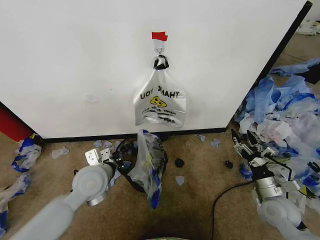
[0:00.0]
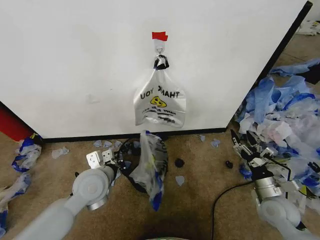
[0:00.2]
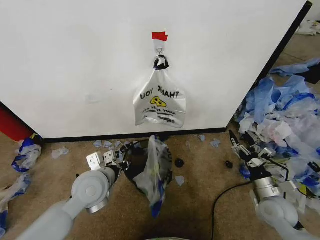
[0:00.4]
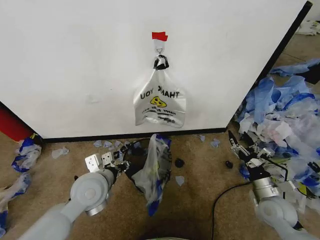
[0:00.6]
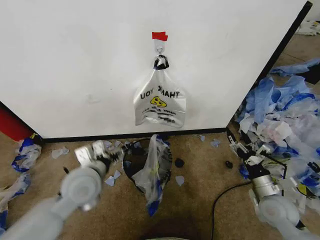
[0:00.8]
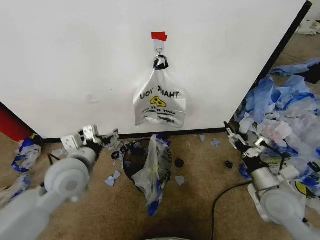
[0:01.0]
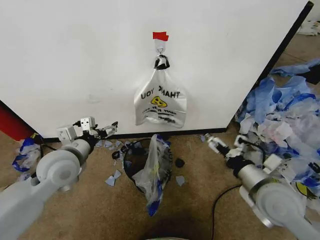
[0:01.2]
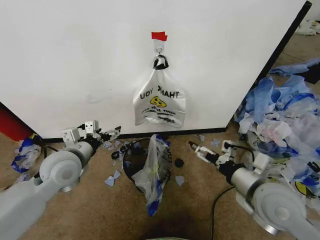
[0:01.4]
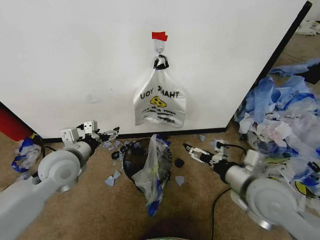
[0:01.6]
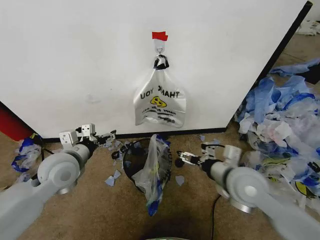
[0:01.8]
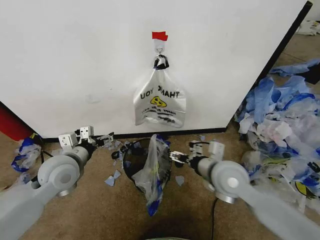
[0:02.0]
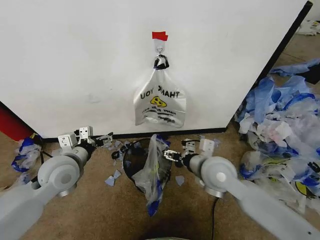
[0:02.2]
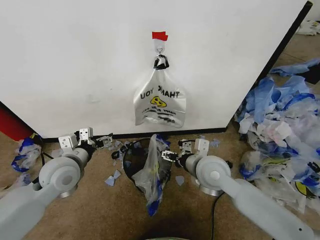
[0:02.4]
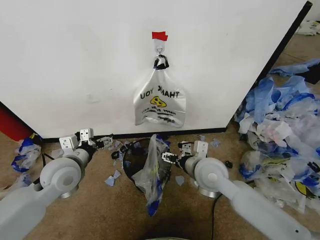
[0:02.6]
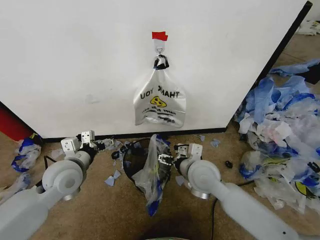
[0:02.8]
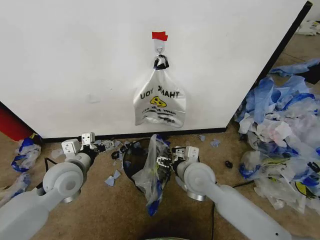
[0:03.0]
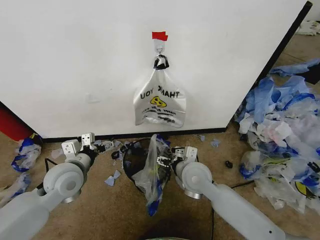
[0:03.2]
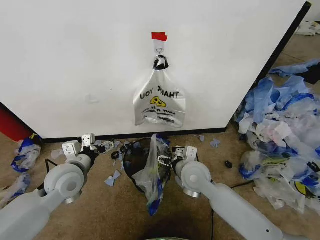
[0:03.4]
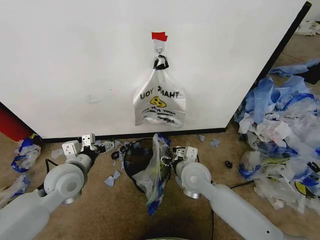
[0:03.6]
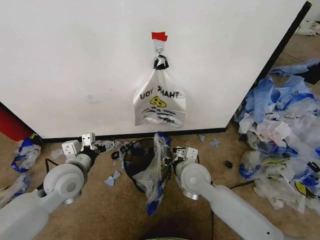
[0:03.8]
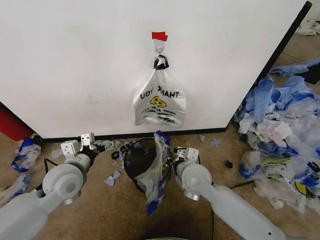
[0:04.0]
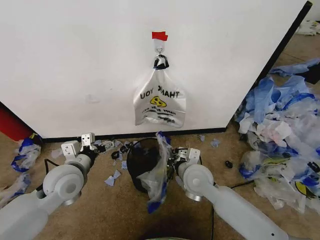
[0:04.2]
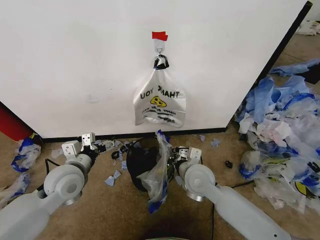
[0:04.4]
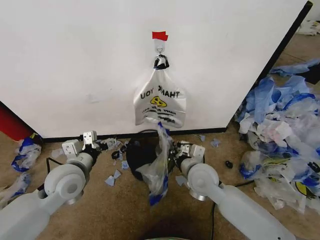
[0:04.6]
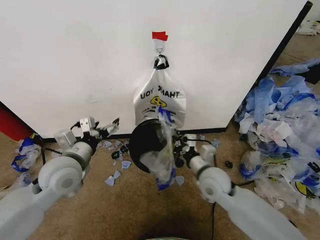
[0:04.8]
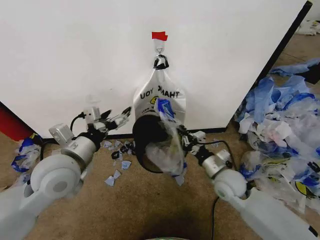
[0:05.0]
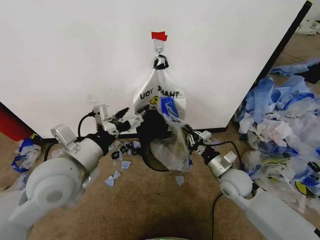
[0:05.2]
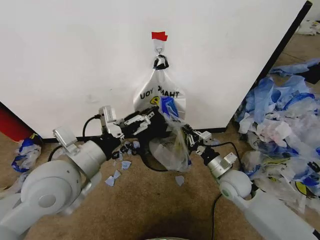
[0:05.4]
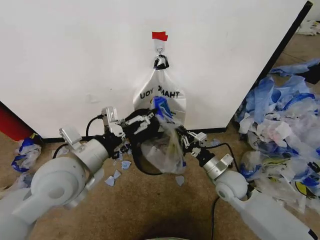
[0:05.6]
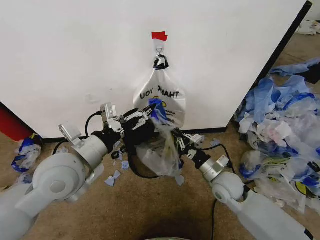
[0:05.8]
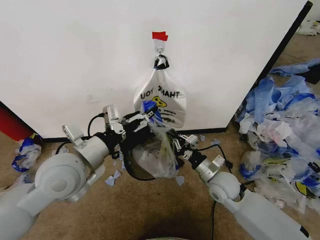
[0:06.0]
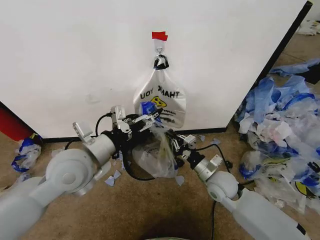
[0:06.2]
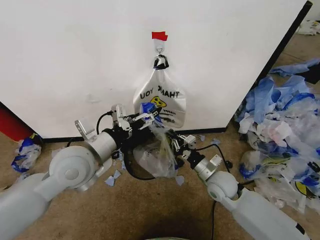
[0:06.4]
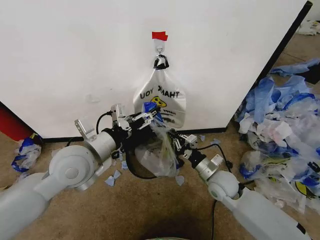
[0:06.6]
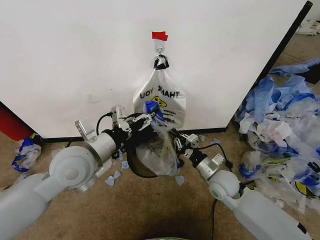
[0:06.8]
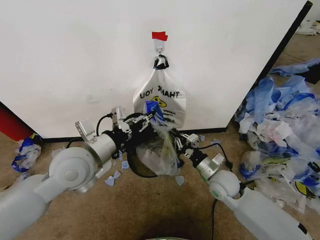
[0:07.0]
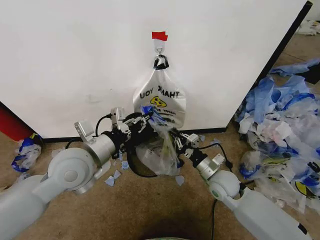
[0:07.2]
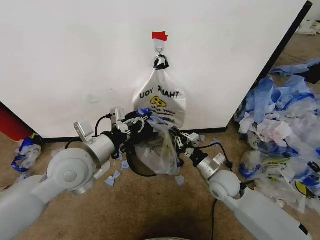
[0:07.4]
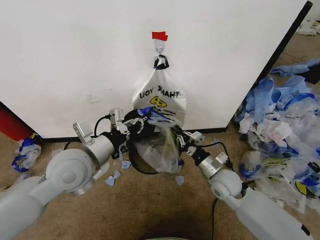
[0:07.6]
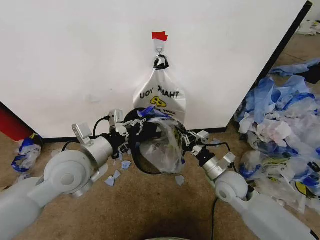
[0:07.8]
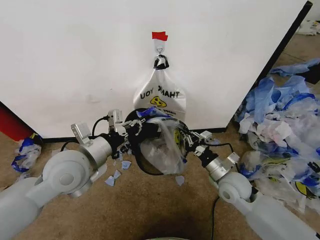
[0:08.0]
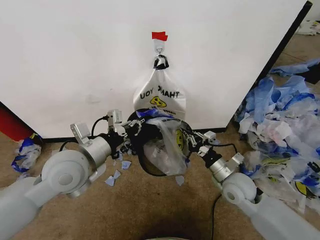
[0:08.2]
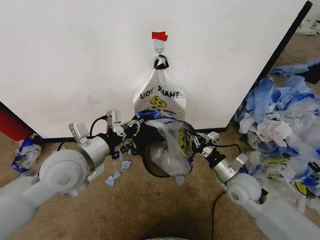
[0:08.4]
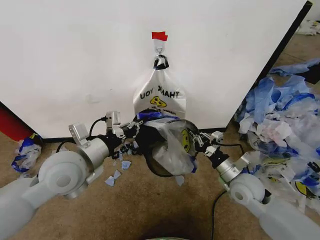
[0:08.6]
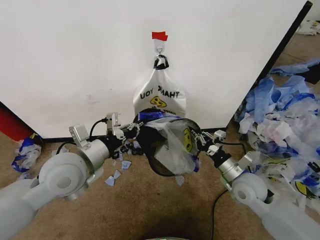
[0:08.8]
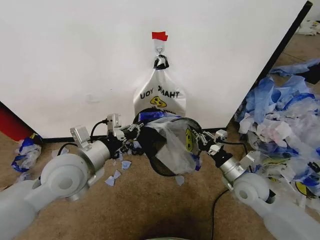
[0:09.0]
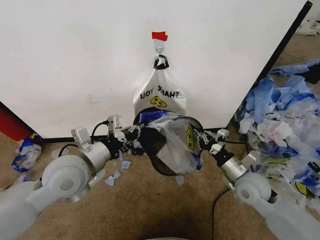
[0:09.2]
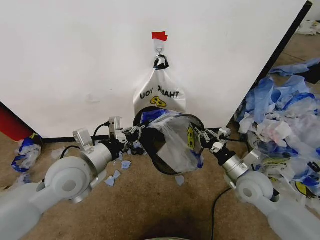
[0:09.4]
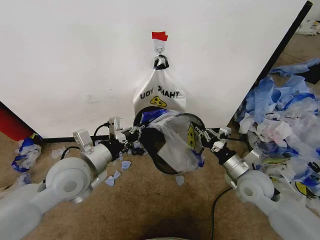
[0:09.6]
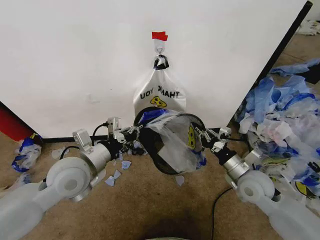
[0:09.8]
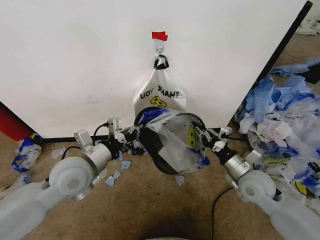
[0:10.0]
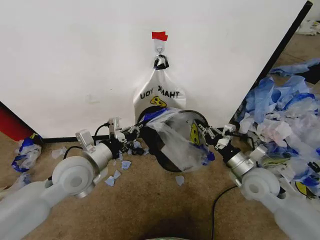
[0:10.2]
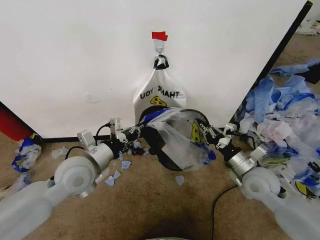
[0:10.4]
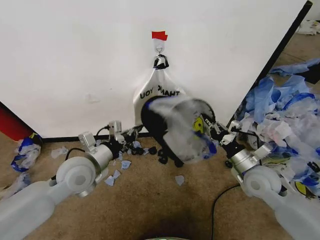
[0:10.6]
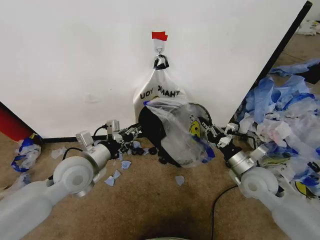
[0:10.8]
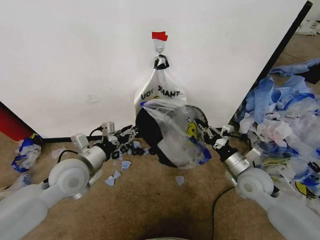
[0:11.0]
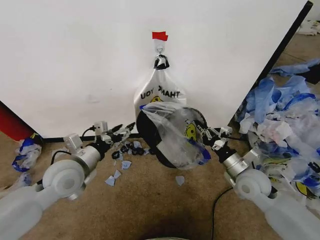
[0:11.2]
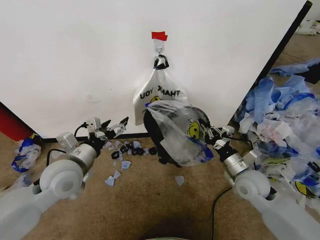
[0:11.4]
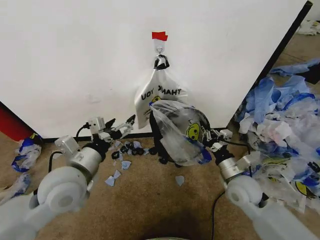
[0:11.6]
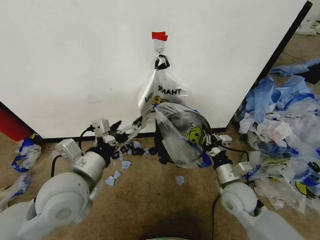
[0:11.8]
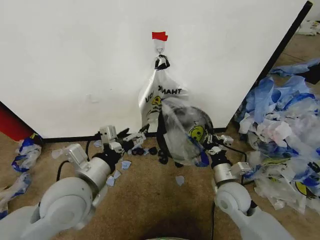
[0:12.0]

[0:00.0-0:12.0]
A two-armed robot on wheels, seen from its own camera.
Task of the whole recording: Pick up the garbage bag from the wall and place it over the trash bin.
0:00.0 to 0:01.6: The left gripper heads to the left and upward, covering approximately 10 cm, and opens its fingers. The right gripper goes about 20 cm upward and to the left.
0:01.6 to 0:03.0: The right gripper moves to the left, forward and downward, roughly 15 cm.
0:03.0 to 0:04.4: The right gripper closes its fingers.
0:04.4 to 0:06.0: The right gripper moves to the right, roughly 10 cm. The left gripper shifts about 10 cm upward and to the right.
0:06.0 to 0:07.6: The left gripper closes.
0:07.6 to 0:09.0: The right gripper shifts approximately 5 cm to the right.
0:09.0 to 0:10.4: The left gripper heads downward, covering approximately 5 cm.
0:10.4 to 0:12.0: The right gripper moves to the left and downward, some 10 cm. The left gripper heads backward, covering about 10 cm, and opens its fingers.

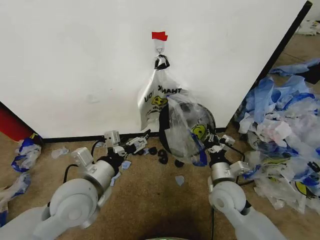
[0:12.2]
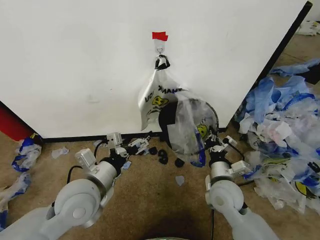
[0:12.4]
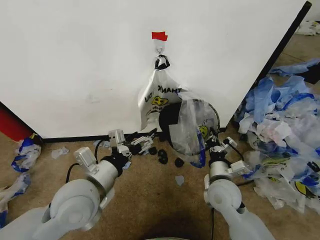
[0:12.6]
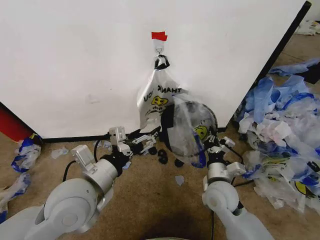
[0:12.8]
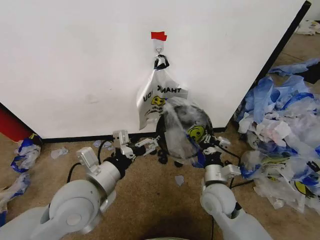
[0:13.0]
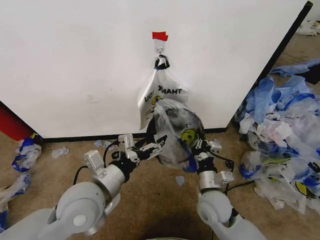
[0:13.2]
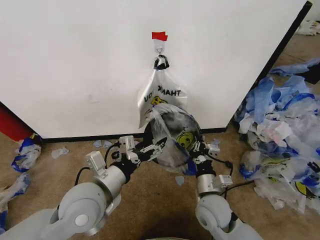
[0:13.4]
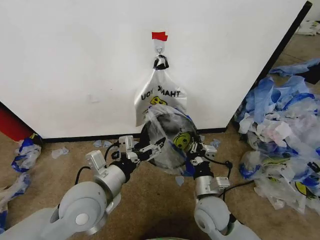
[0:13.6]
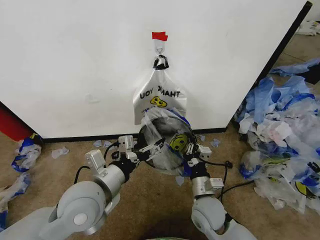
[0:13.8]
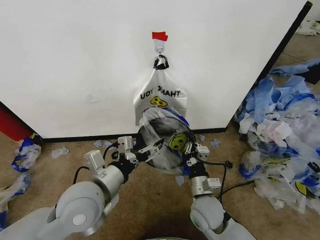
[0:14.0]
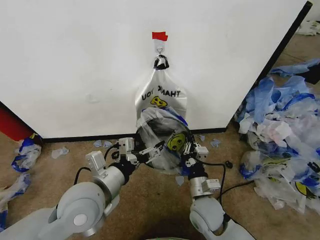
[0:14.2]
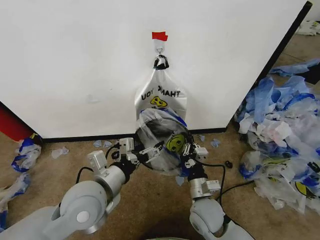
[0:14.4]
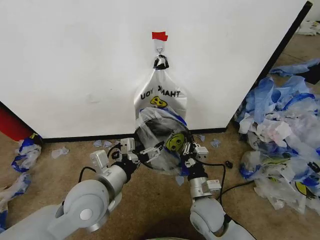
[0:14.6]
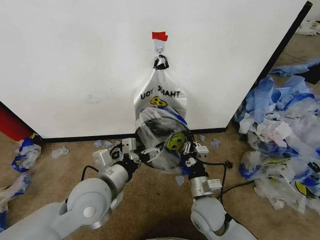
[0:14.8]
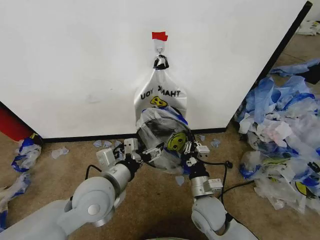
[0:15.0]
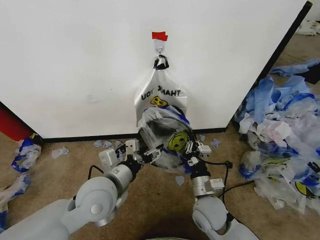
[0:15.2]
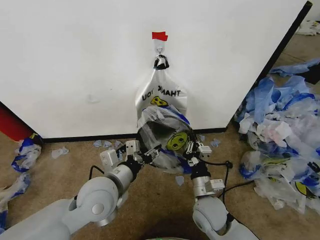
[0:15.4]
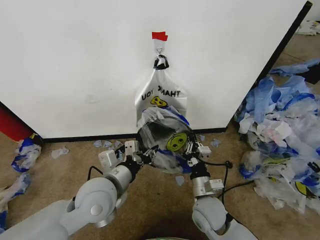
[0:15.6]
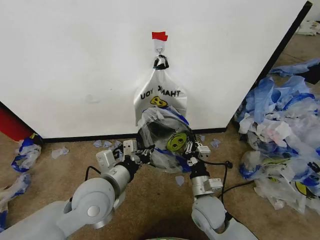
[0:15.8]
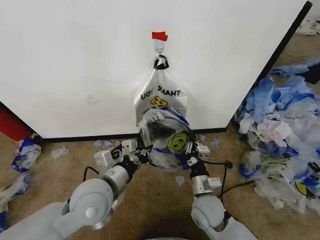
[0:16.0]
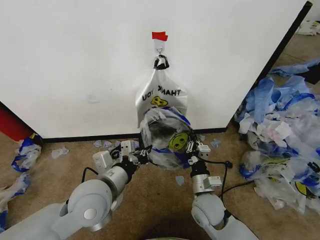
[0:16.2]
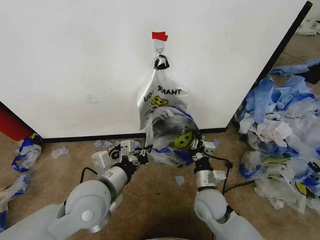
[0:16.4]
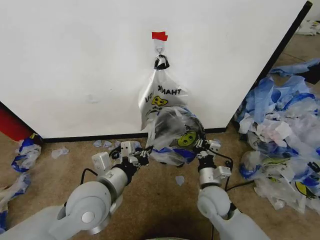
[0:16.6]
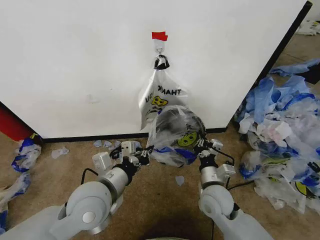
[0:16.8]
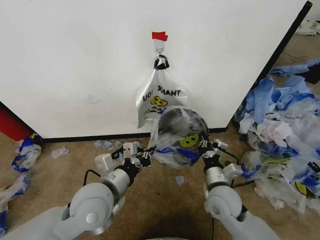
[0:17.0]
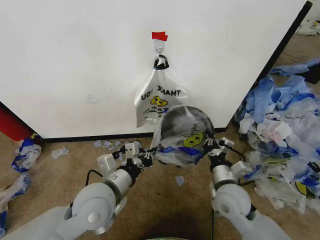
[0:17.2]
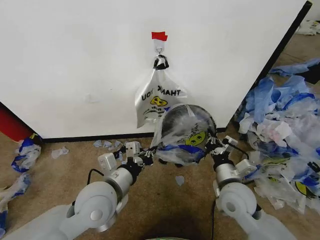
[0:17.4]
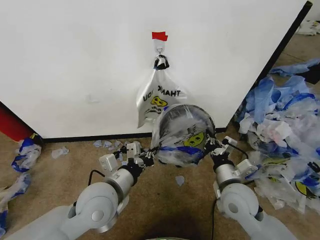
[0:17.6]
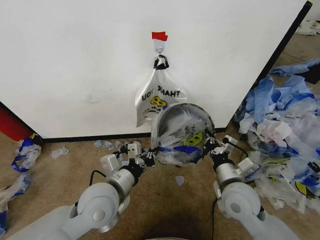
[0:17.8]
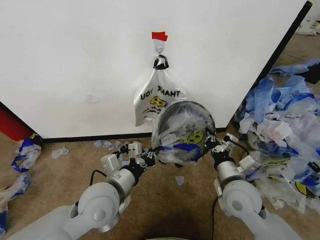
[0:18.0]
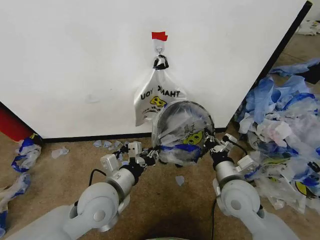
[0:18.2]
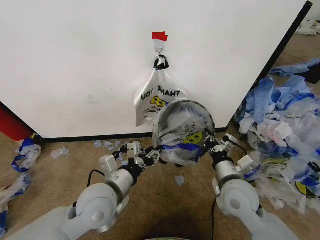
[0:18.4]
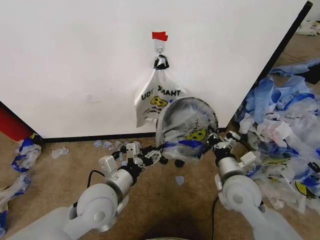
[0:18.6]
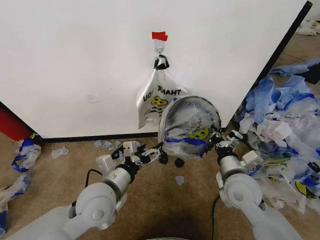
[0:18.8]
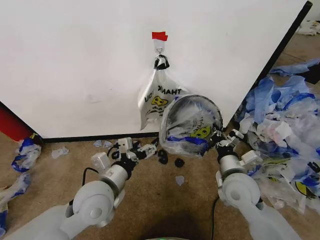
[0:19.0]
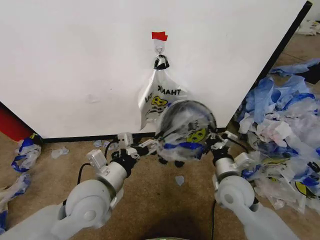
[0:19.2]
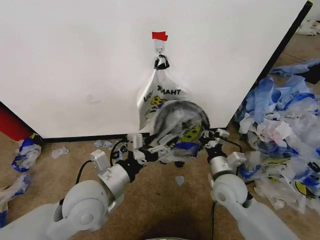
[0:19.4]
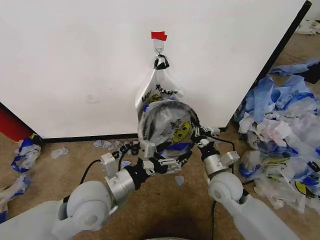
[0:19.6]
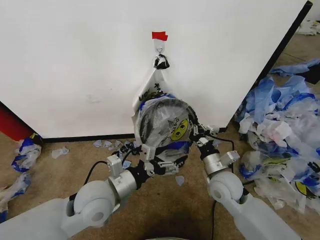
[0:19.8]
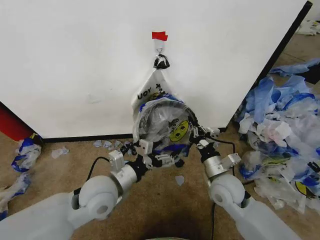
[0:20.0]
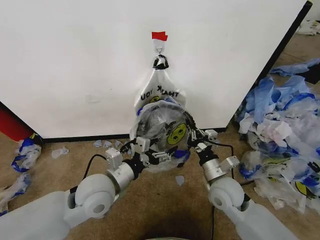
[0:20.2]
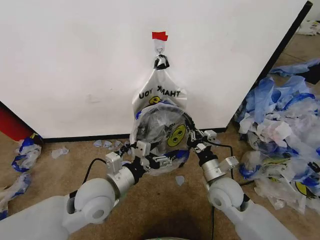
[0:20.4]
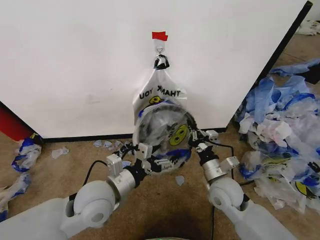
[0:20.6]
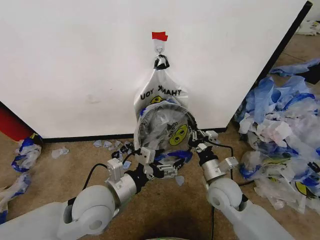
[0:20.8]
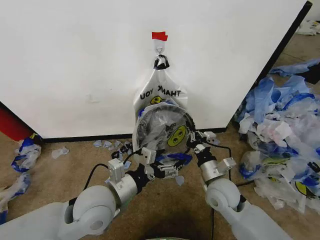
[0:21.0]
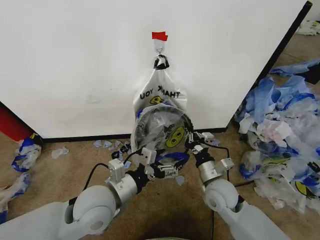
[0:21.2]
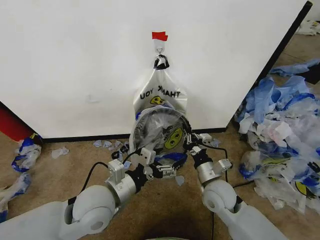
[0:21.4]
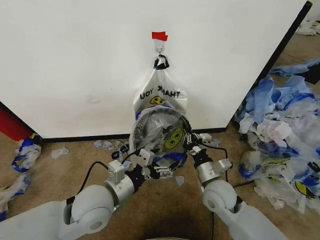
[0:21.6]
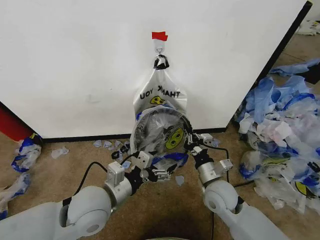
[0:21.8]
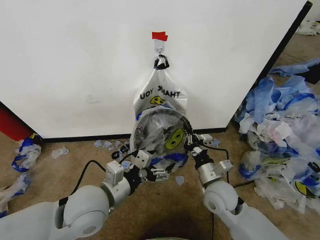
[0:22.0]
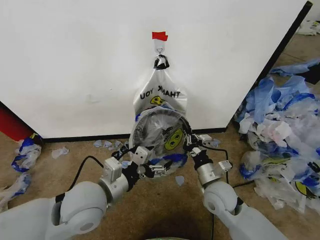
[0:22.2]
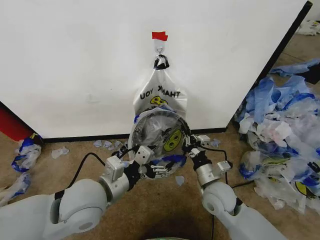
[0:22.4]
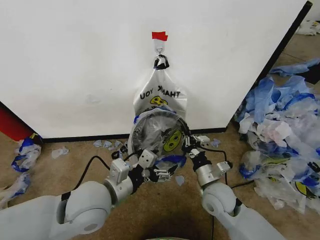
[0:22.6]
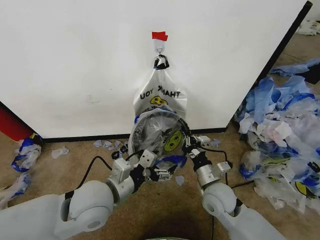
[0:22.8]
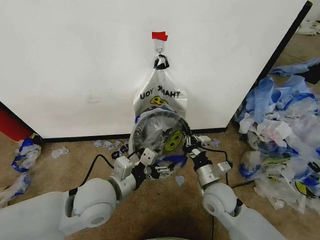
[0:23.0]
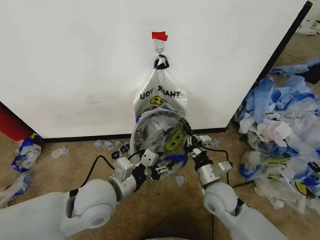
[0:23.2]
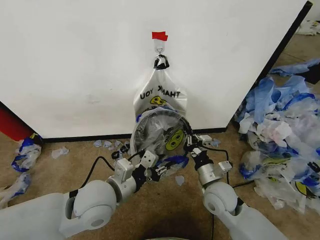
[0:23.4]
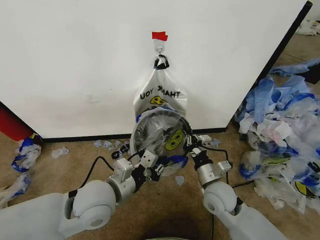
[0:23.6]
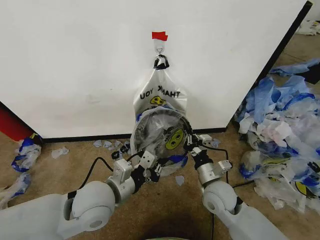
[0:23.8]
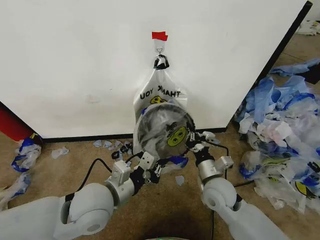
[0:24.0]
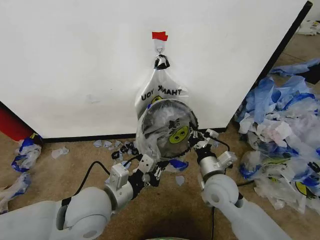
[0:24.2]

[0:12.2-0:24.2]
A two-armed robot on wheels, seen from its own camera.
Task of the whole recording: Pick up the garbage bag from the wall and place it over the trash bin.
0:12.2 to 0:13.8: The right gripper goes some 5 cm to the left.
0:13.8 to 0:15.2: The grippers make only small movements.
0:15.2 to 0:16.6: The left gripper closes up.
0:16.6 to 0:18.2: The right gripper moves upward, approximately 10 cm.
0:18.2 to 0:19.8: The left gripper opens its fingers; the right gripper shifts by roughly 5 cm.
0:19.8 to 0:21.2: There are only small adjustments of the grippers.
0:21.2 to 0:22.6: The grippers stay close to where they were, moving slightly.
0:22.6 to 0:24.2: The left gripper closes.
